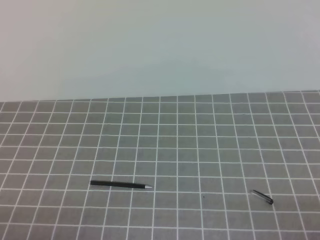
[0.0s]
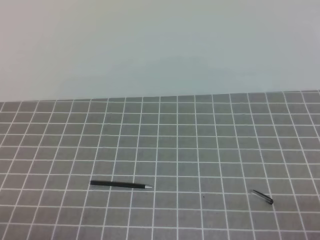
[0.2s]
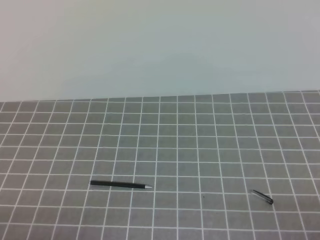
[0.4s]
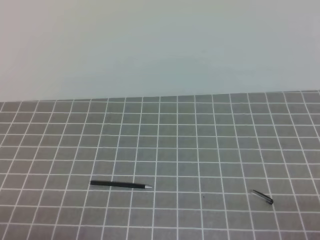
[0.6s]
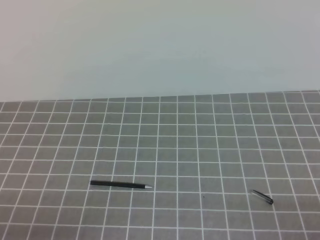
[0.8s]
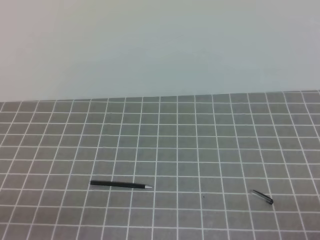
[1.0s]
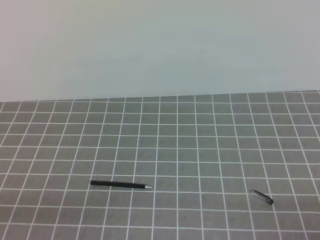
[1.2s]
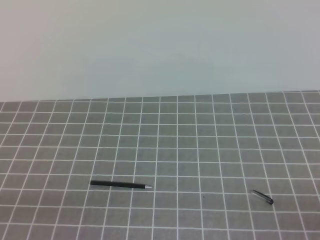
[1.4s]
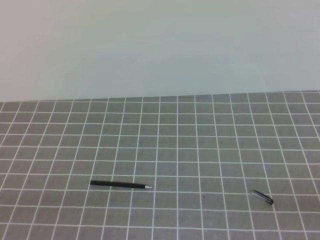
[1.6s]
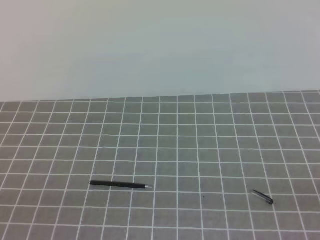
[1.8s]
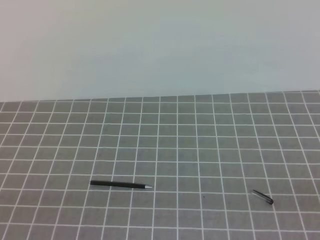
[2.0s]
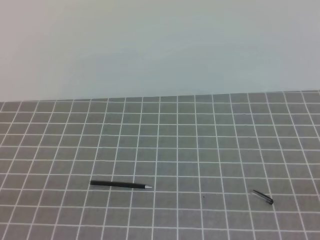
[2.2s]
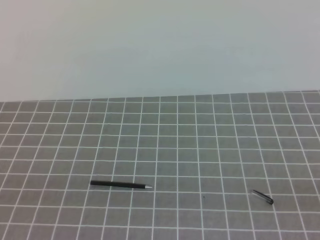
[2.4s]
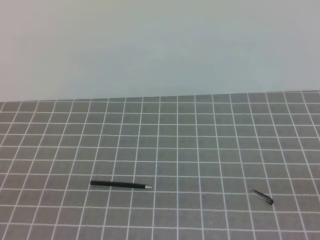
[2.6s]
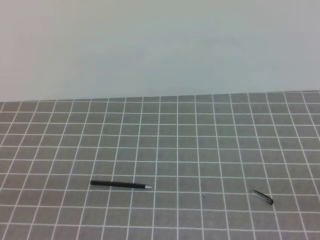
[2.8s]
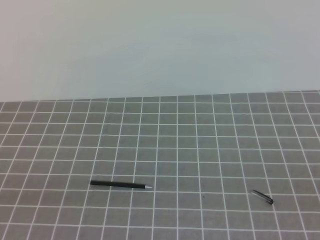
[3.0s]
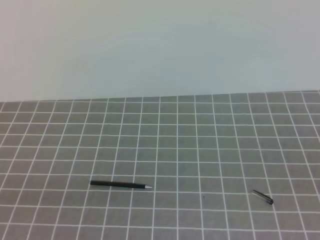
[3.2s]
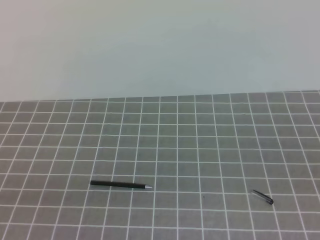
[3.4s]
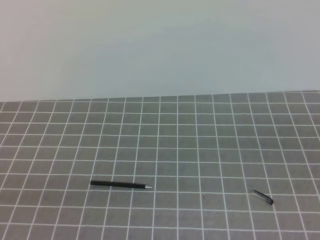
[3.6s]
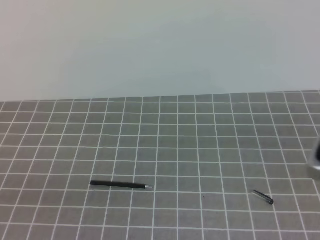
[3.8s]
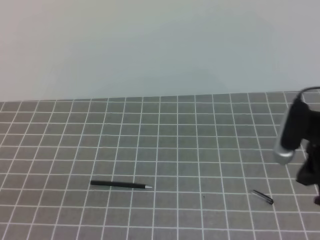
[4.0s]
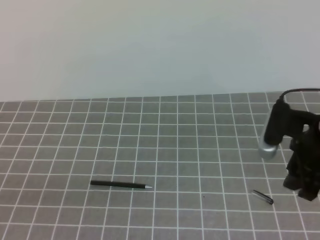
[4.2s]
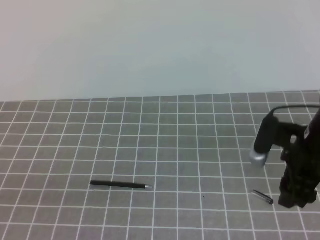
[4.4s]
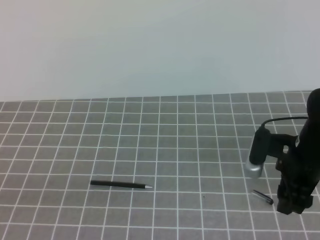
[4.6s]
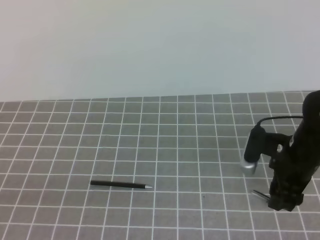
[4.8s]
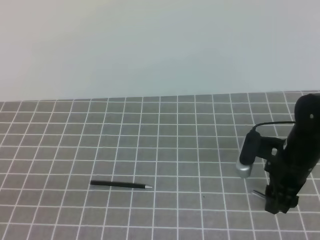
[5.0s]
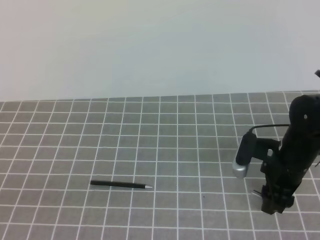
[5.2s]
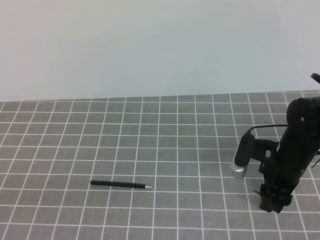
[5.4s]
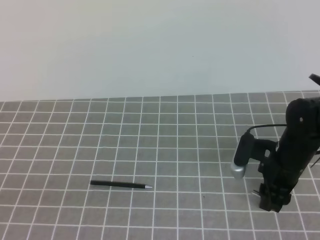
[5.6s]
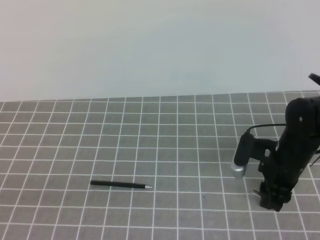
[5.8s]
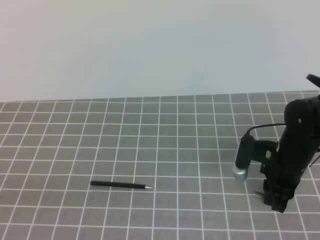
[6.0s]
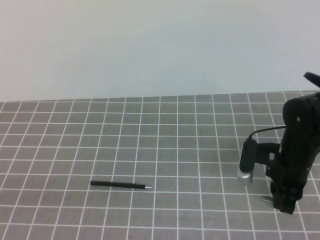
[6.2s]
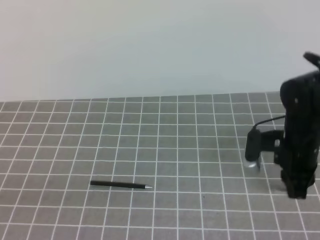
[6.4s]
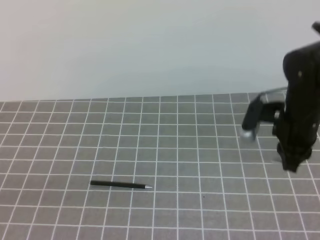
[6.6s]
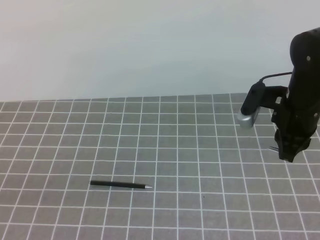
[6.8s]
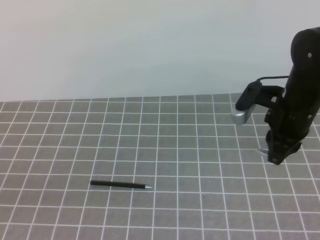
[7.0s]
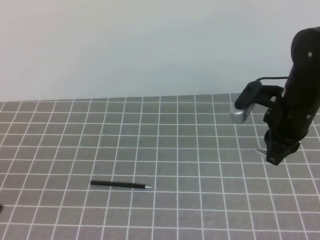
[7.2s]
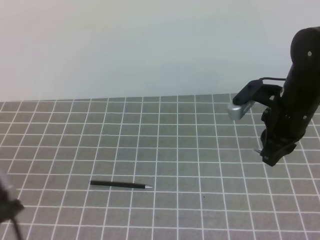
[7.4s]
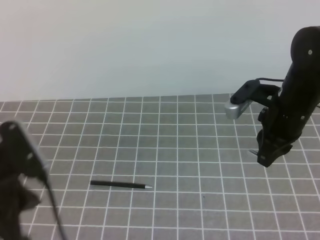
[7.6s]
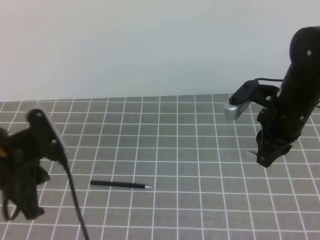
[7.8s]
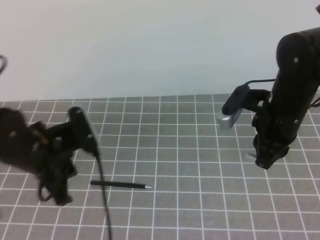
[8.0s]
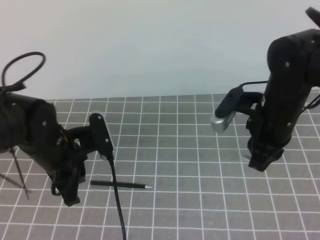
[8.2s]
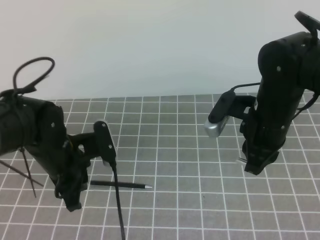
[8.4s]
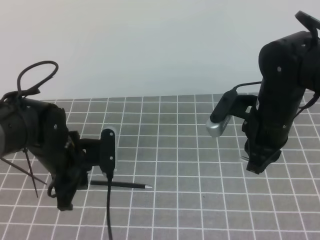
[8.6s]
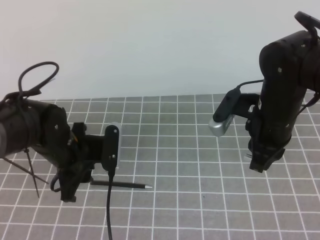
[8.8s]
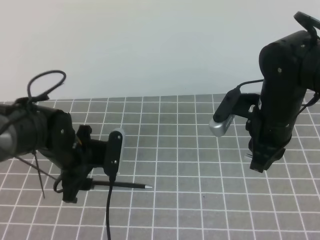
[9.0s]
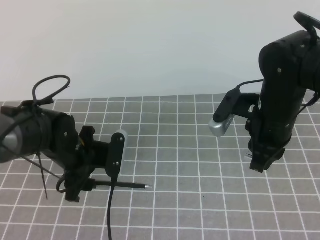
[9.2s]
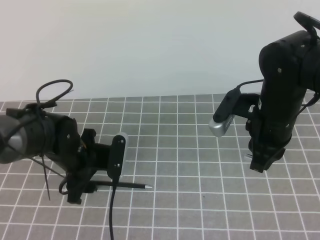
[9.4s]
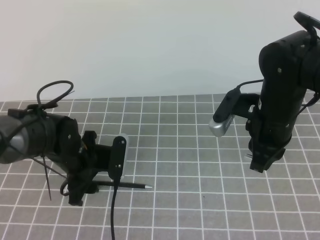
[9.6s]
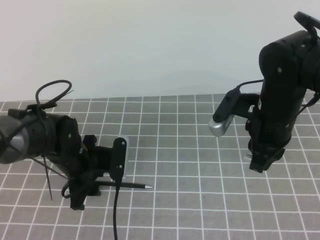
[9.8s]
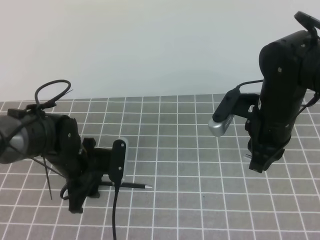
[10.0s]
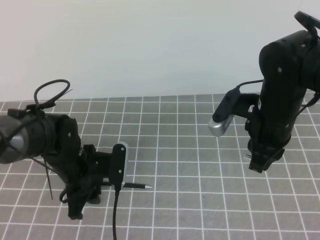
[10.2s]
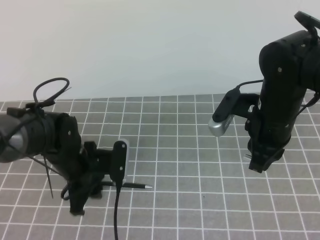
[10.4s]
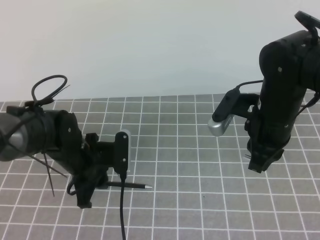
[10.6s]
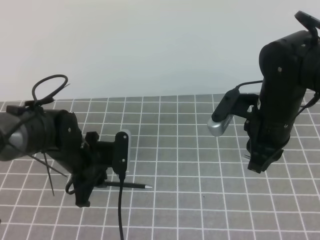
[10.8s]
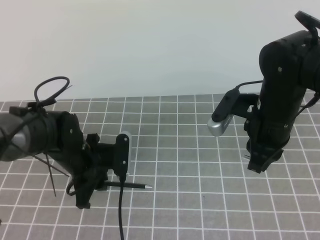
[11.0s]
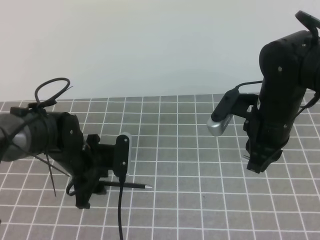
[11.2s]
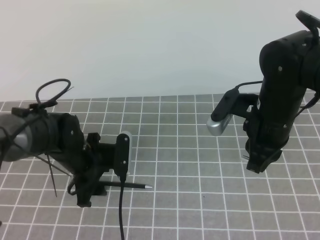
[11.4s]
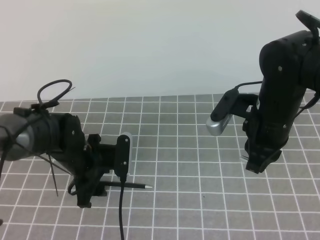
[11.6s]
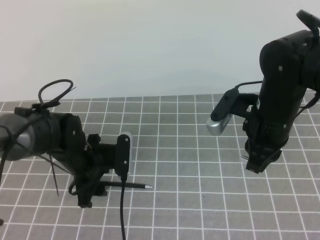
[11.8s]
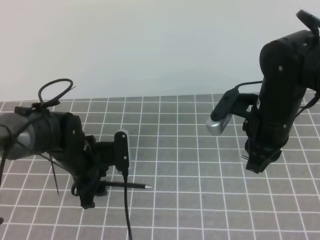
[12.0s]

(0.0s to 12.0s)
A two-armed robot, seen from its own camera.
Task of the whole recording: on the grey tablecloth, hold the pen cap in one hand and the pen in the other, then cover the pen cap.
Step, 0.0s - 4.0s: Pick up the pen cap.
Step, 4.2s - 8.8s: Pick up the pen.
3.0s - 4.4s: The right gripper heads forward and to the left, covering roughly 25 cm, and opens up.
4.4s - 6.0s: The right gripper is displaced downward by about 10 cm, and closes up.
6.0s - 7.6s: The right gripper travels upward by approximately 10 cm, and closes up. Meanwhile the left gripper heads forward, covering about 10 cm.
7.6s - 9.0s: The left gripper heads forward and downward, covering some 20 cm, and opens its fingers.
9.0s - 10.4s: The grippers move only a little.
10.4s - 12.0s: The left gripper opens its fingers.

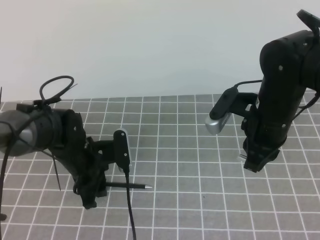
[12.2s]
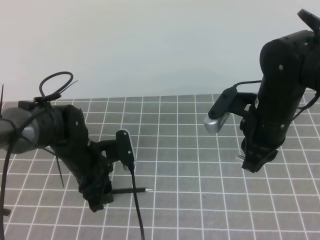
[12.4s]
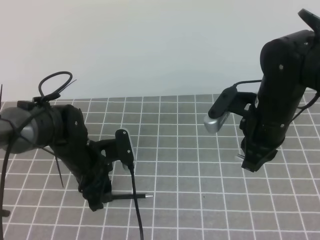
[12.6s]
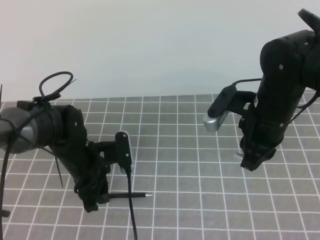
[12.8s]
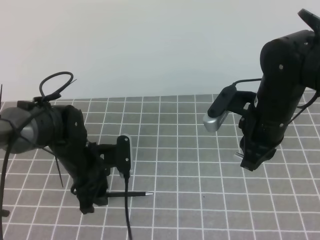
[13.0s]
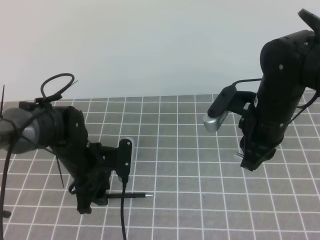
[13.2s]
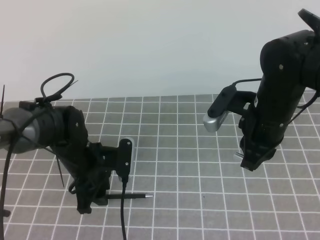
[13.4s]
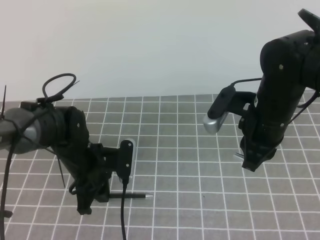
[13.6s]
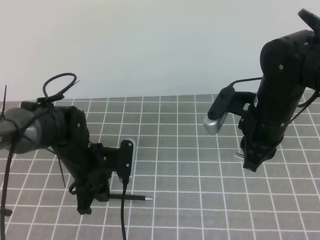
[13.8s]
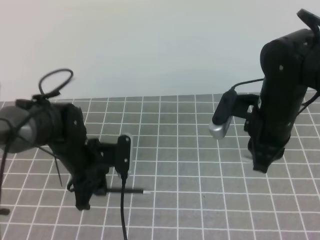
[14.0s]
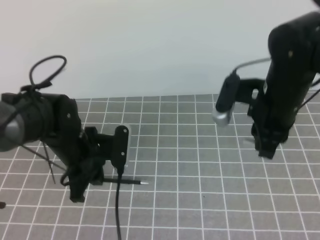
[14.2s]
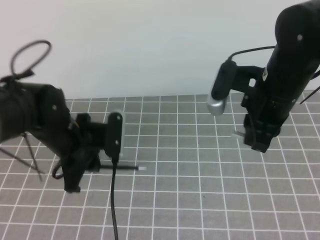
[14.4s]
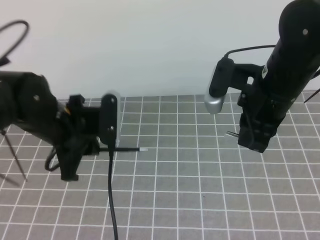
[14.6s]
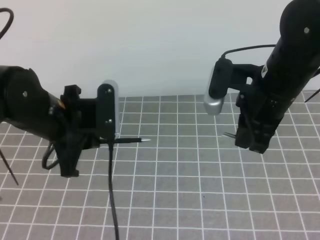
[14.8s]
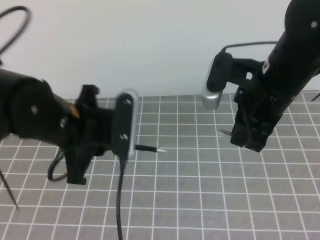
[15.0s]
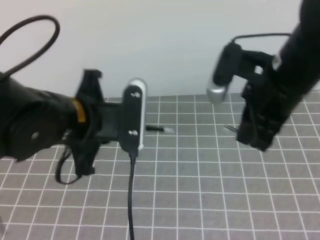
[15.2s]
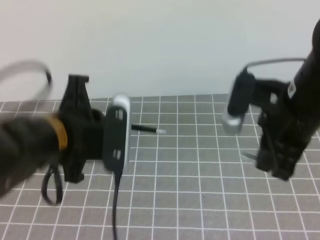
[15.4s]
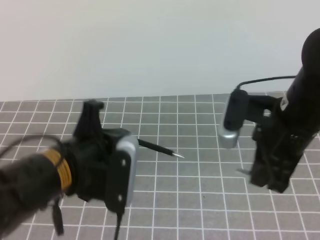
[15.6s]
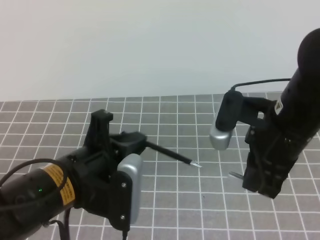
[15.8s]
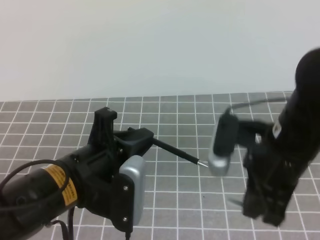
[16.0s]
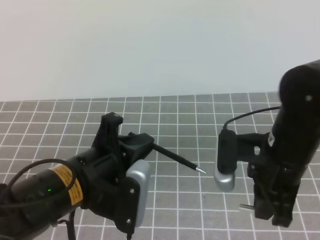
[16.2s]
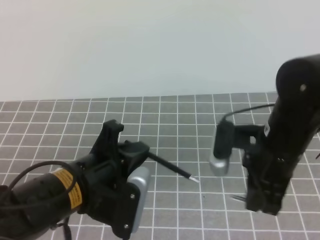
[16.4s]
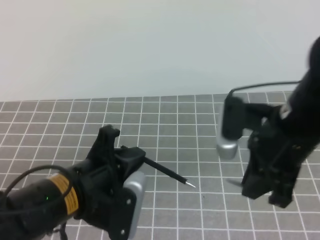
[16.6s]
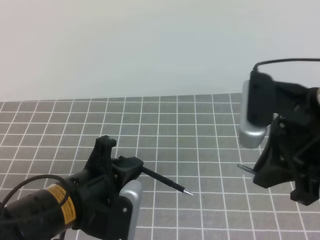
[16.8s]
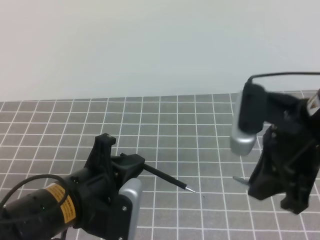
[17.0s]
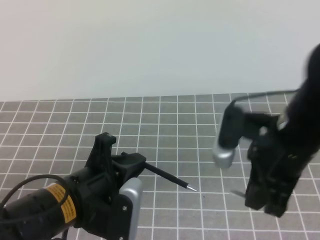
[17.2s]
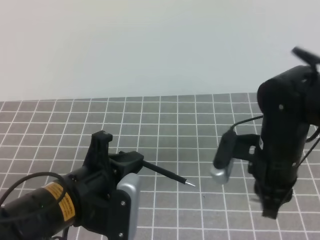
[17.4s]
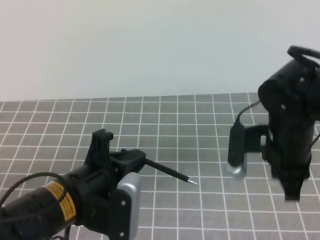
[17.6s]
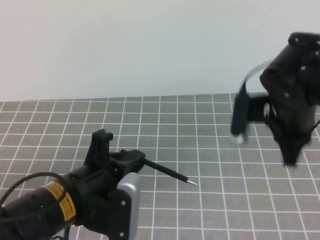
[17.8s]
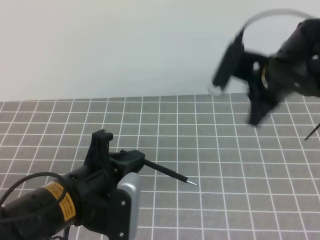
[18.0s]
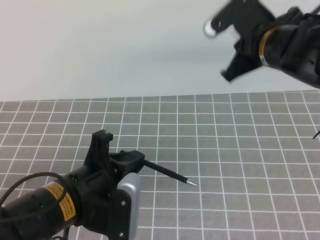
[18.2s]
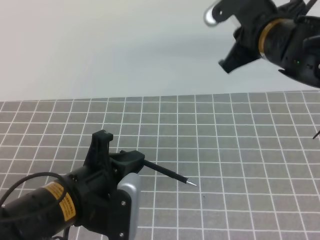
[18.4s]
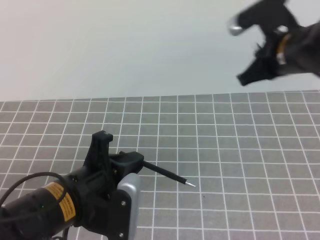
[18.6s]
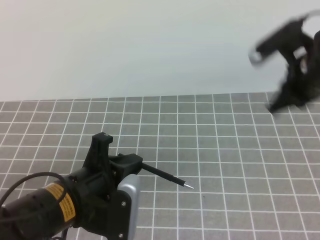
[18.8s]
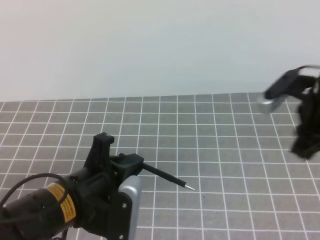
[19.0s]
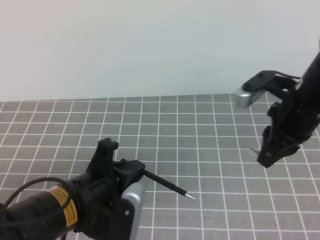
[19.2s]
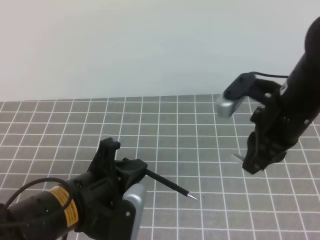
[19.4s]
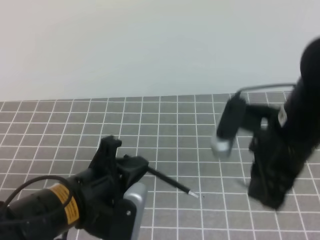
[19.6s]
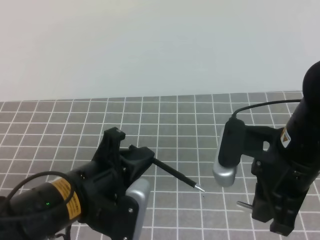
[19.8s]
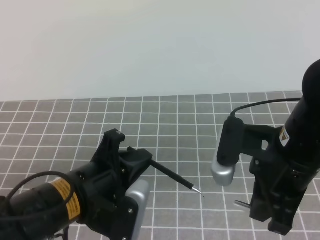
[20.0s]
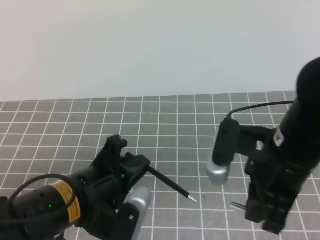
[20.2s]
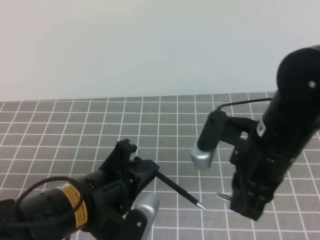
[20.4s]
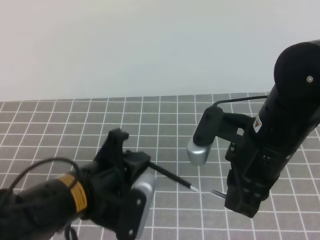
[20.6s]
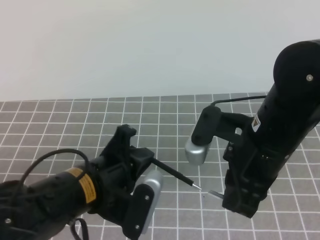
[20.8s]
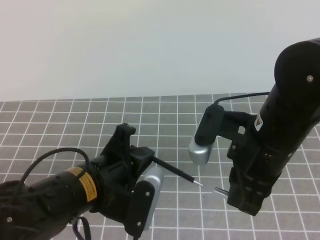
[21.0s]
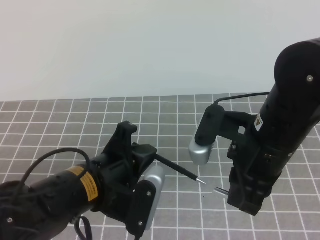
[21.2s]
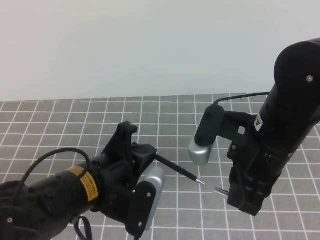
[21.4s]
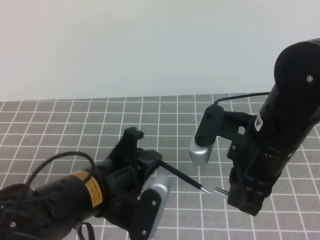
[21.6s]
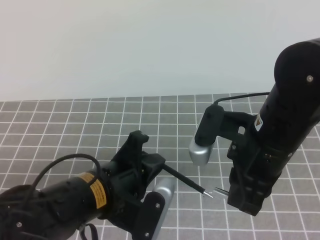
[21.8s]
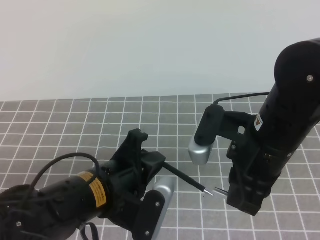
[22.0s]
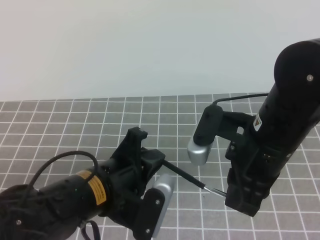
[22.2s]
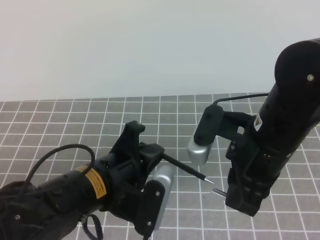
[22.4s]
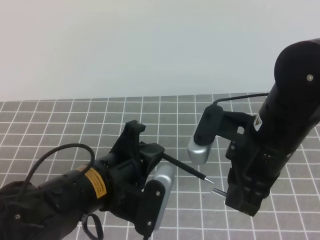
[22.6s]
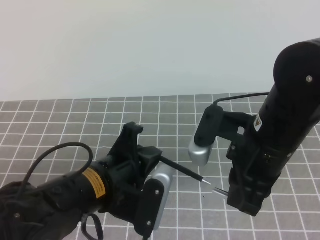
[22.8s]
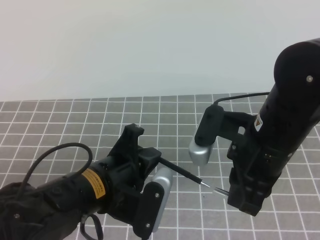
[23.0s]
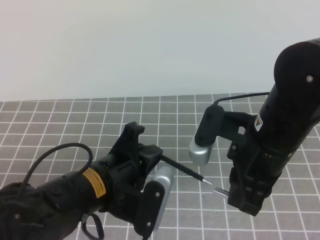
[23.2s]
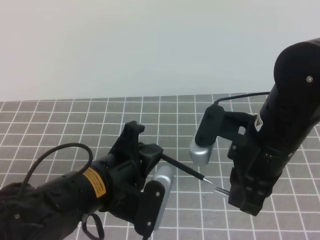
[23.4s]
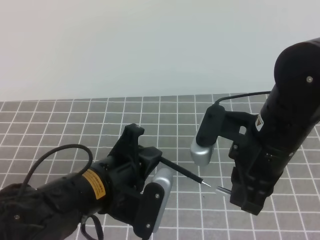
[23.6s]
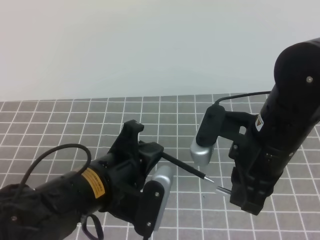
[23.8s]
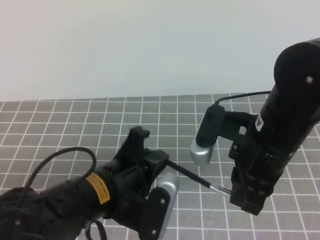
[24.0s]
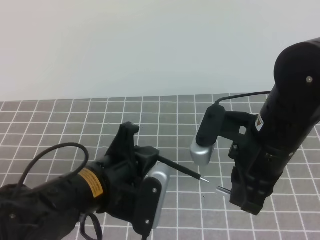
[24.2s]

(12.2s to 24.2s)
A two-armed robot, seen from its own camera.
Task of the whole recording: on the grey tablecloth, hold the pen cap in one hand and the pen in the other, then cover the pen cap.
12.2s - 13.8s: The left gripper closes its fingers.
13.8s - 15.2s: The left gripper shifts approximately 20 cm upward and backward. The right gripper travels upward by some 10 cm.
15.2s - 16.6s: The right gripper shifts some 5 cm backward. The left gripper heads backward and downward, covering roughly 10 cm.
16.6s - 18.2s: The right gripper shifts about 10 cm forward.
18.2s - 19.8s: The right gripper moves backward, about 10 cm.
21.2s - 24.2s: Both grippers stay about where they are.
